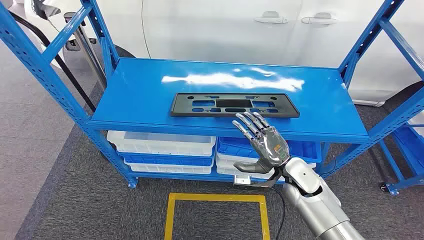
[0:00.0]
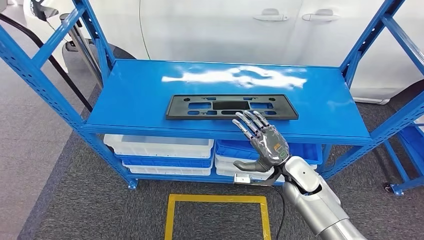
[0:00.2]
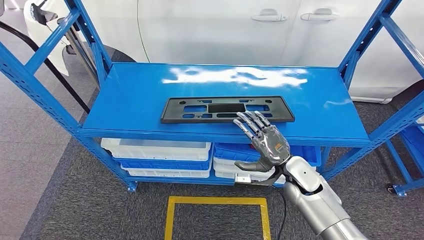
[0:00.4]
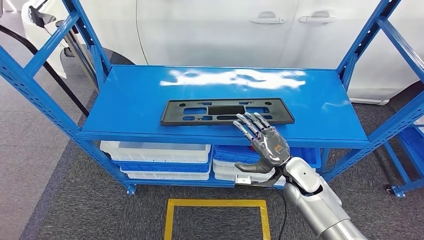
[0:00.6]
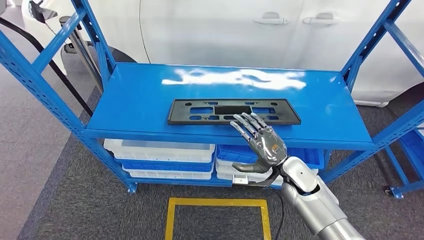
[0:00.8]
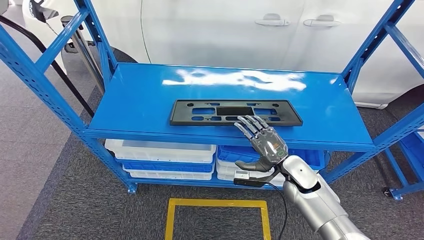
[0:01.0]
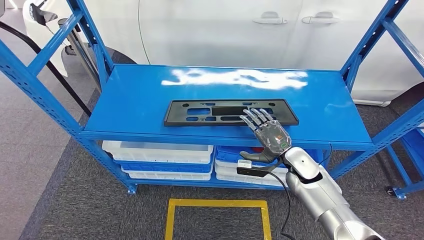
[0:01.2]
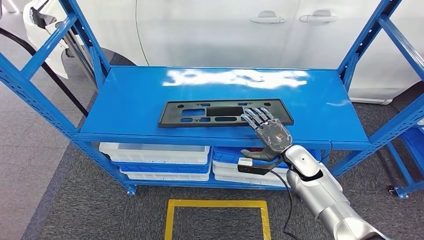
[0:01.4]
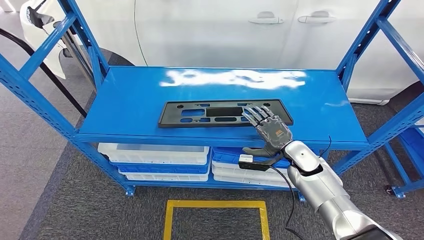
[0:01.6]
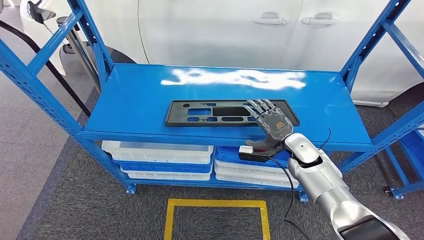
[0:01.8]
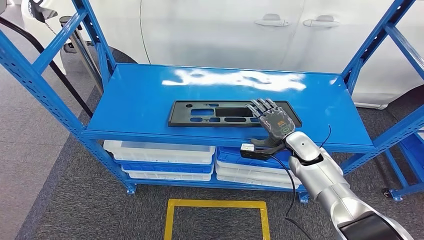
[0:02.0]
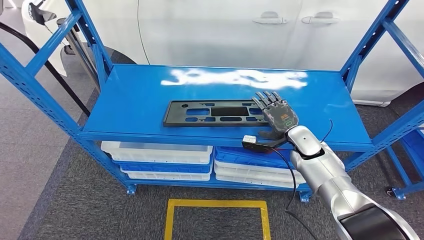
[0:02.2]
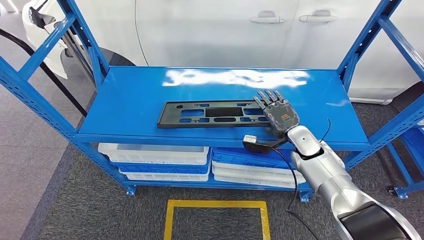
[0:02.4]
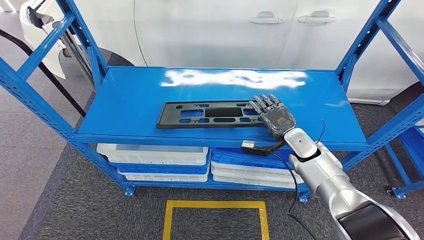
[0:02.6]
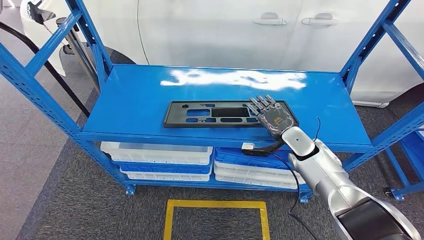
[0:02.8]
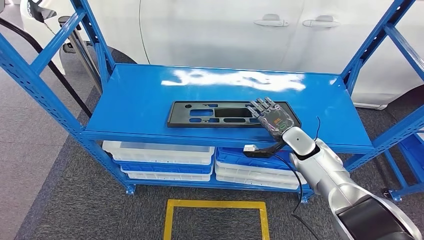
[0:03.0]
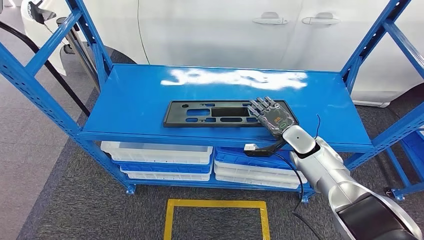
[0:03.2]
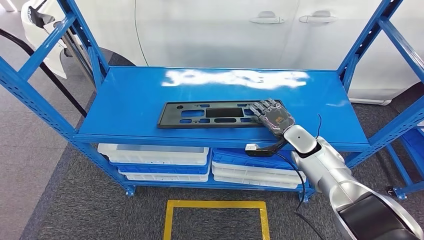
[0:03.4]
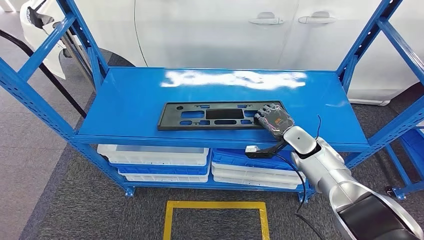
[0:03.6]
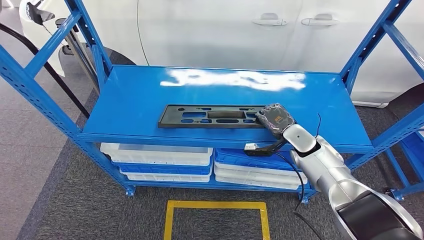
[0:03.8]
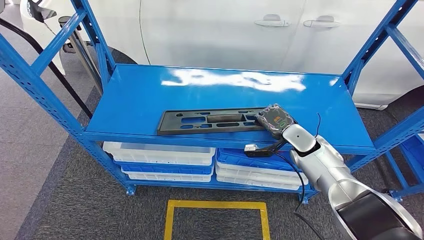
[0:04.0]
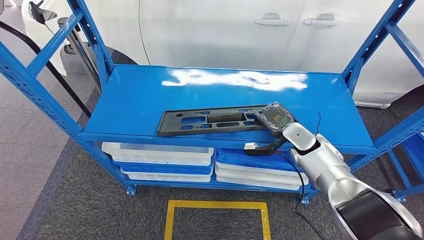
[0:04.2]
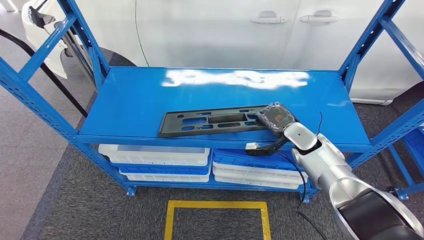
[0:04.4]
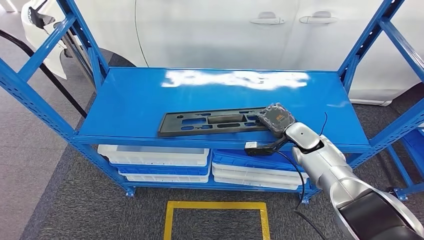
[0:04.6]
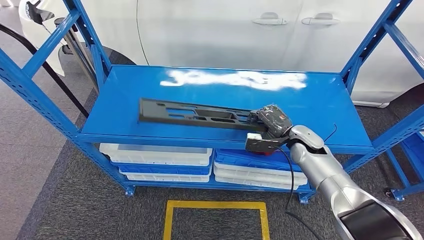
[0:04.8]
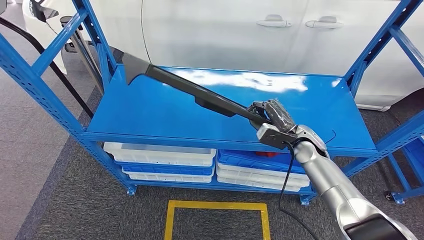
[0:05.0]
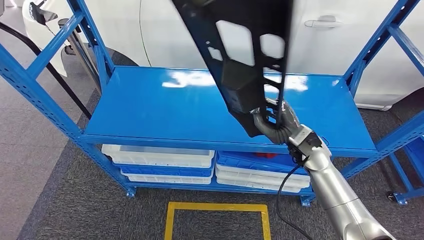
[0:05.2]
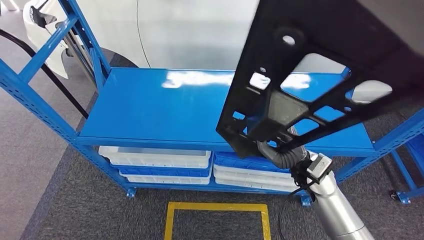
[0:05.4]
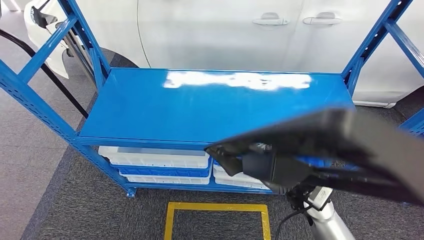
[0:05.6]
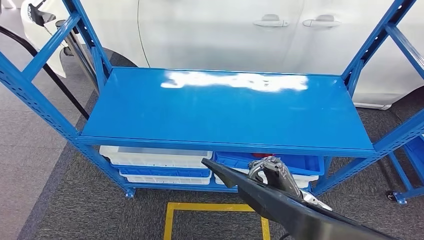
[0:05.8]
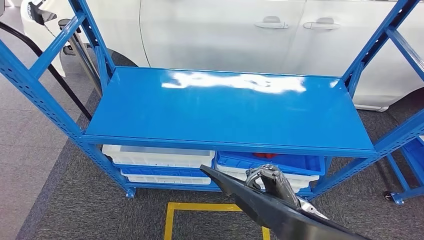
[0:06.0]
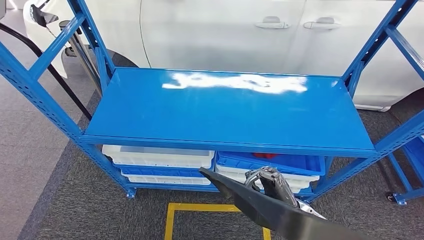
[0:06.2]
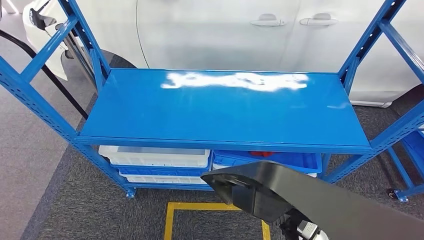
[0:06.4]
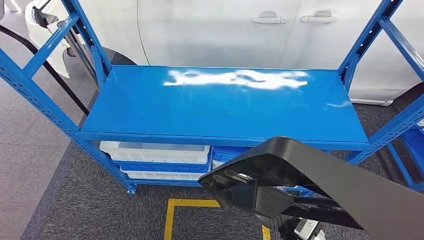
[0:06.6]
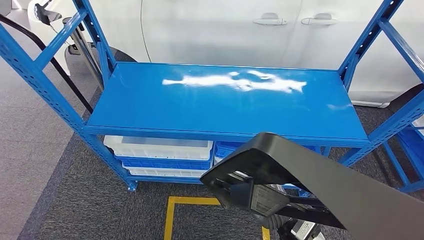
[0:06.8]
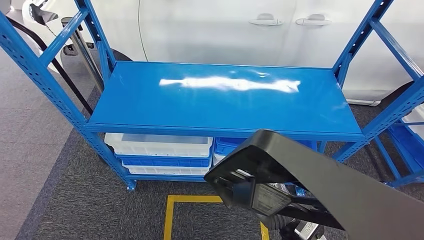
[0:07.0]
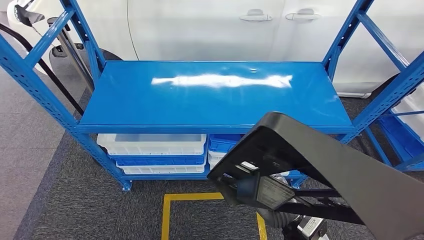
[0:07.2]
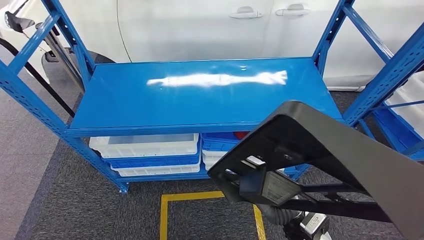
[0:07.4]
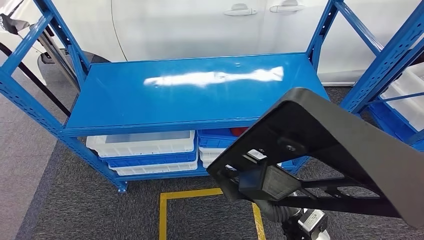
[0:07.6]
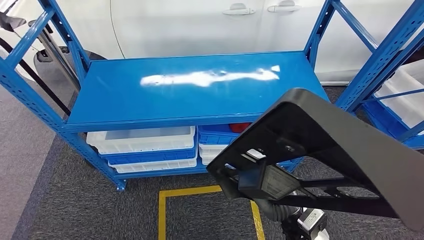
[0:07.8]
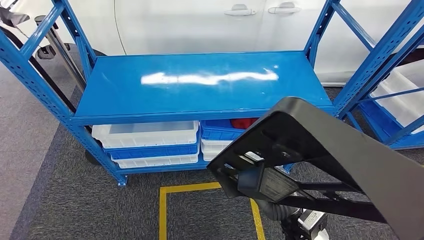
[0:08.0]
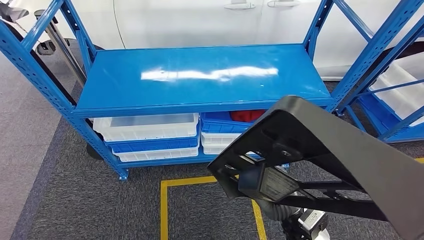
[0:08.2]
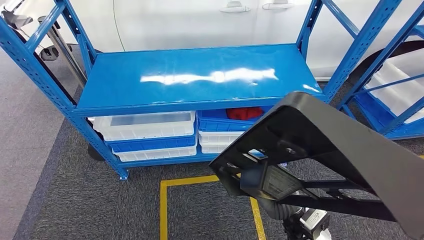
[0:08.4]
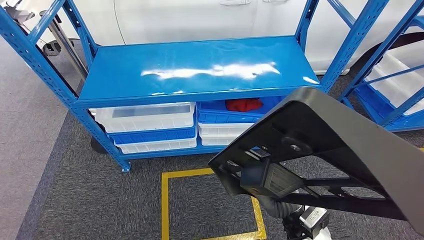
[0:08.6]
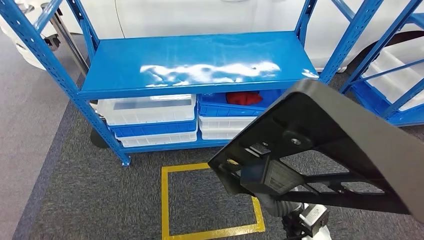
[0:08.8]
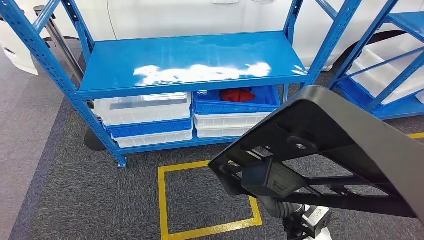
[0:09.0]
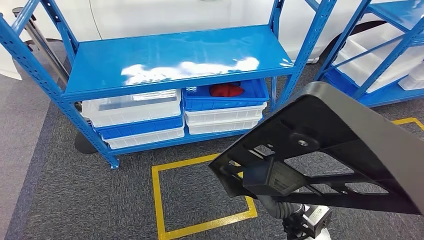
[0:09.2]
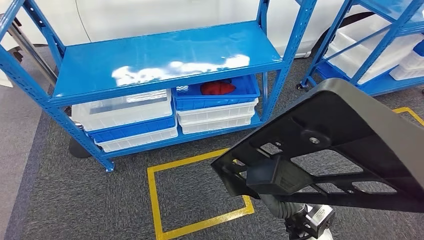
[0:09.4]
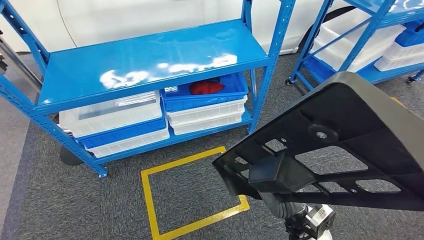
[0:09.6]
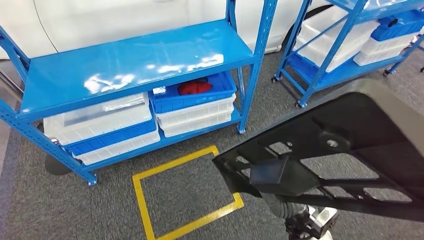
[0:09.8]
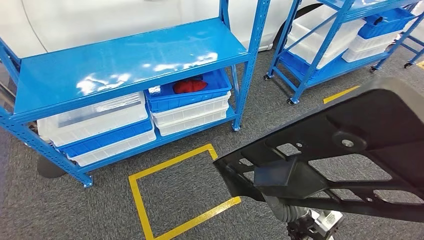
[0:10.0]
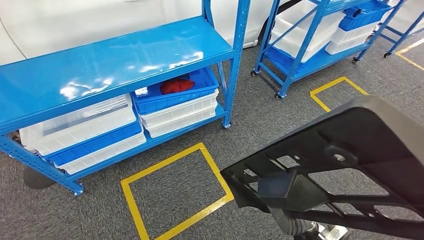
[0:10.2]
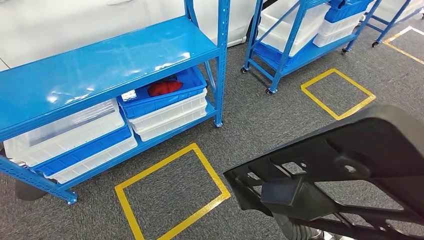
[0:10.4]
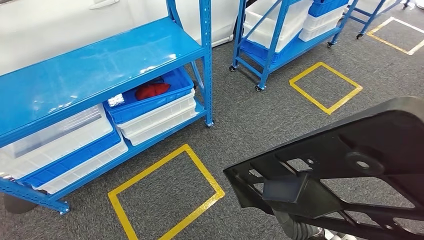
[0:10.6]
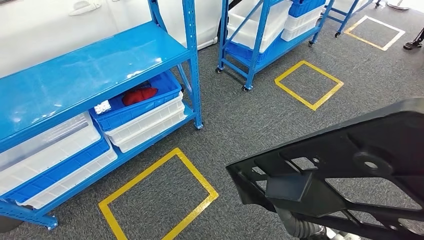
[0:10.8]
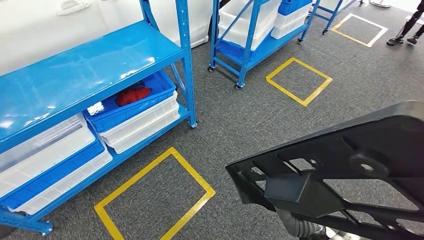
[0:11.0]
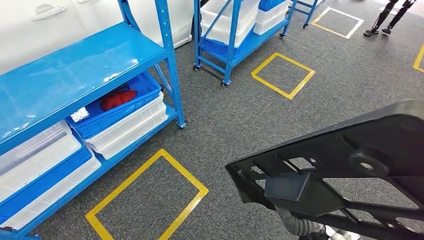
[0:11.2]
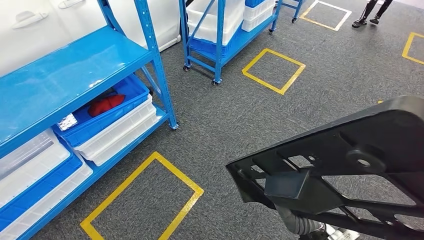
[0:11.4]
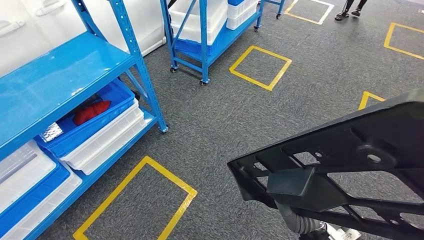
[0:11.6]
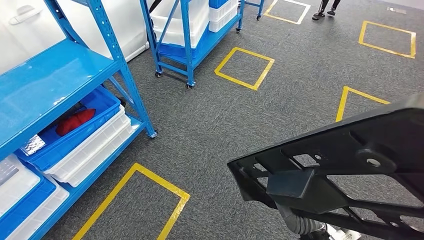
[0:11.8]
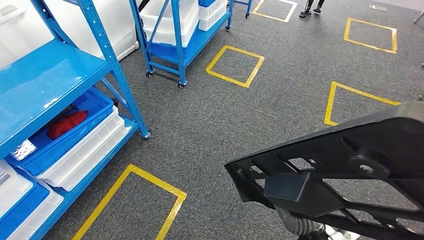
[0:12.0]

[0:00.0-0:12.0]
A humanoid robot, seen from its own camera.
Step, 0:00.0 to 0:05.2: Pick up the large material from the shelf.

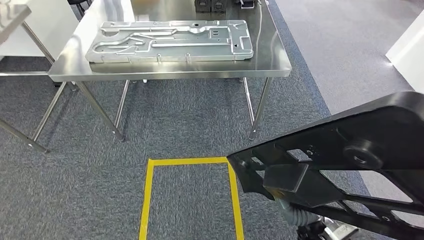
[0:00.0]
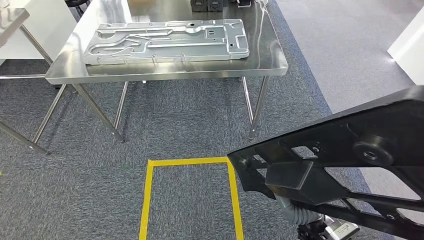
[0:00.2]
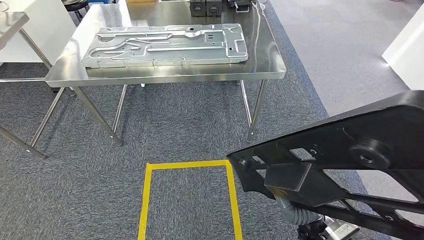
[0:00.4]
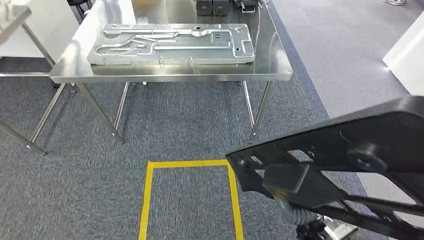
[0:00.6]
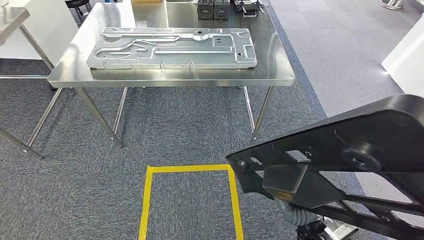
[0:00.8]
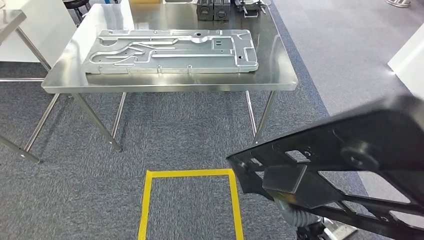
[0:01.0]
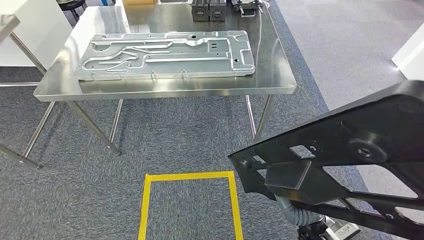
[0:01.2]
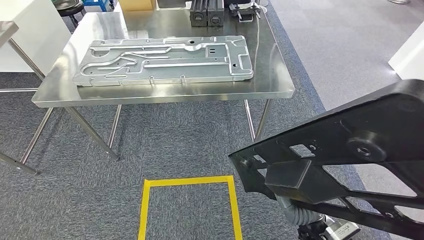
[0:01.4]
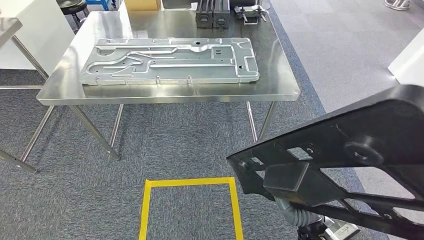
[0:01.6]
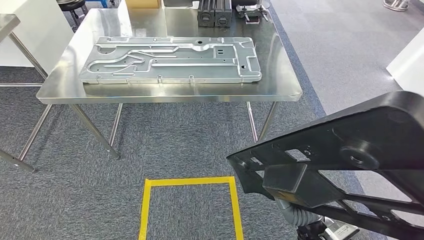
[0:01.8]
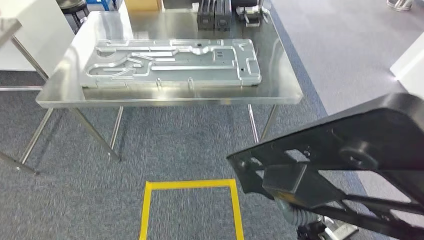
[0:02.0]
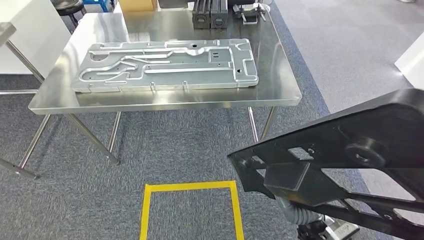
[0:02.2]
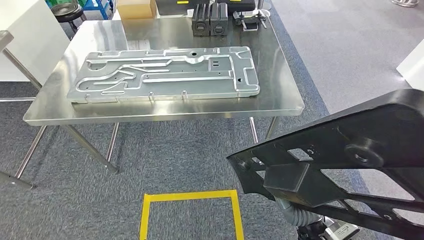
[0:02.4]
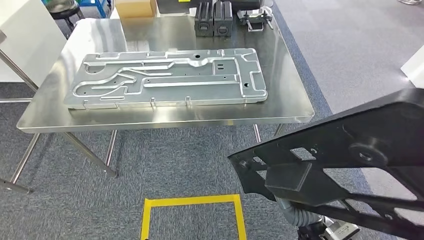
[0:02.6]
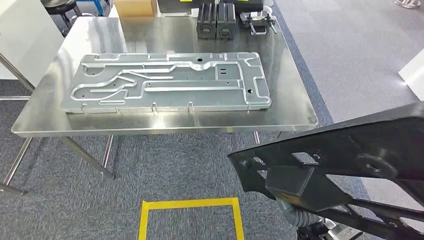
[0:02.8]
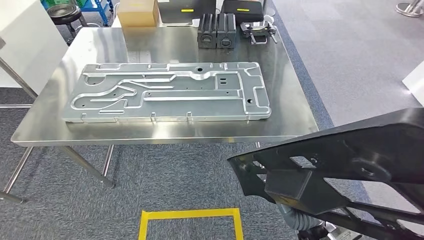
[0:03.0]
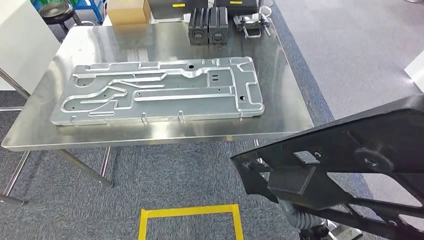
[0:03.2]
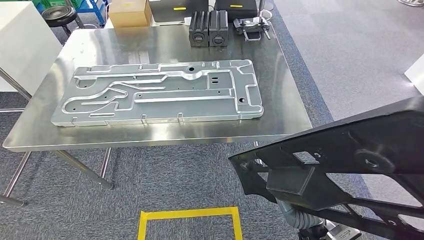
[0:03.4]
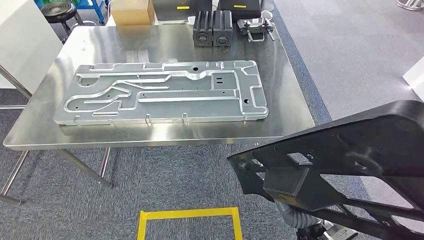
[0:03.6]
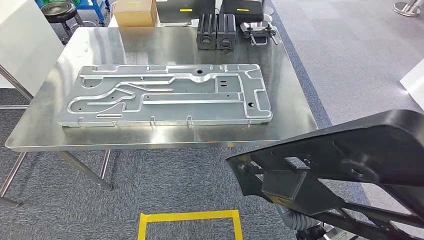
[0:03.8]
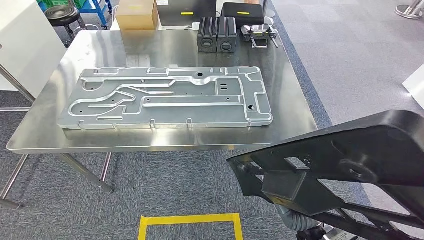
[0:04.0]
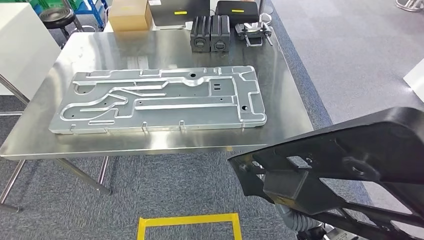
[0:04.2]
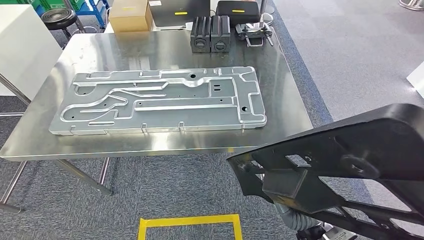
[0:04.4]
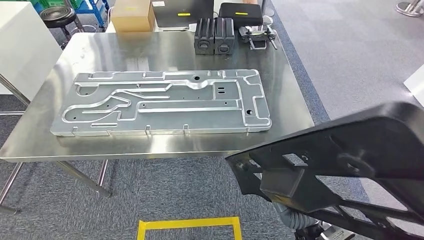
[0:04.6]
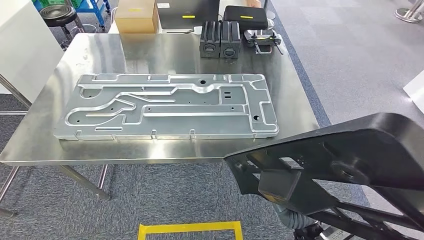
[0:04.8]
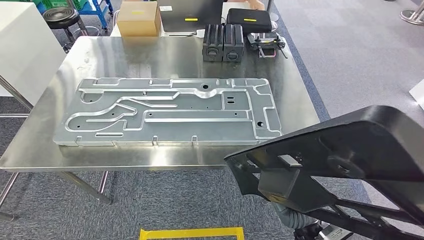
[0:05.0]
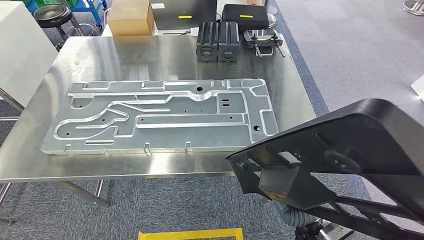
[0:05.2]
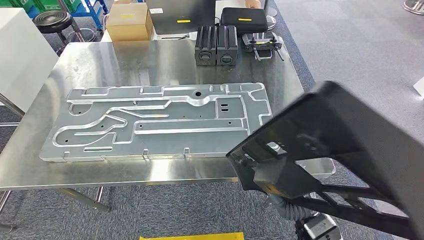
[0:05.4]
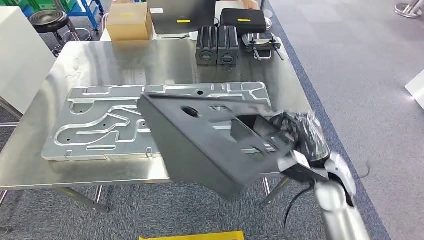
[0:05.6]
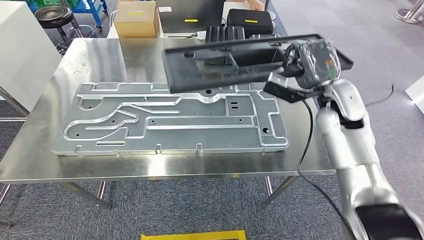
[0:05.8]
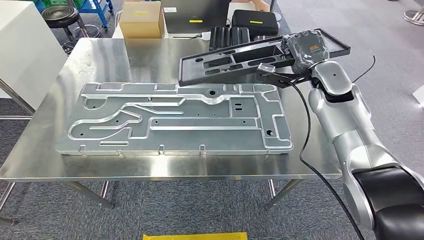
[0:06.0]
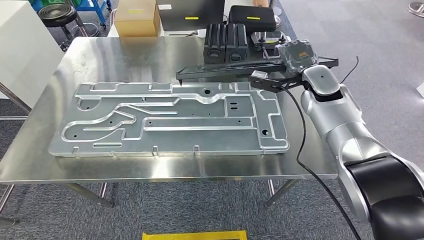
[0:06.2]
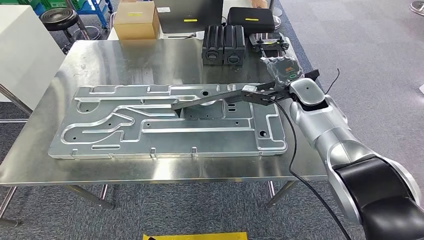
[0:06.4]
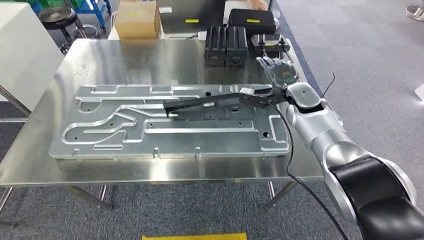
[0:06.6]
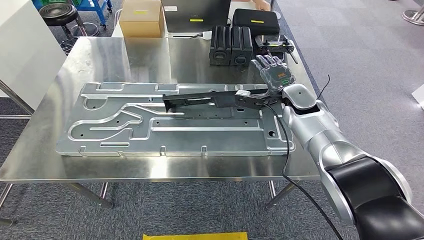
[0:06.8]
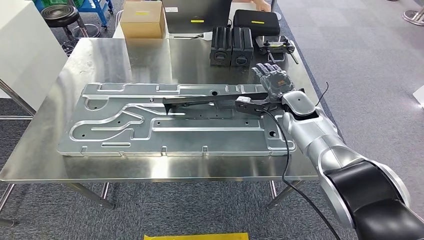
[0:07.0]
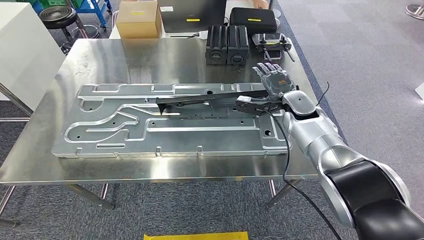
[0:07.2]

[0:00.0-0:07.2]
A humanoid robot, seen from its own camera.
Step, 0:00.0 to 0:06.0: Move the large material to the workbench.
